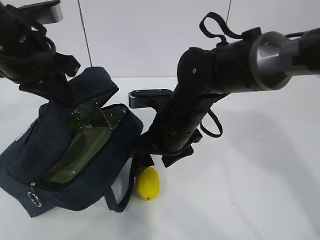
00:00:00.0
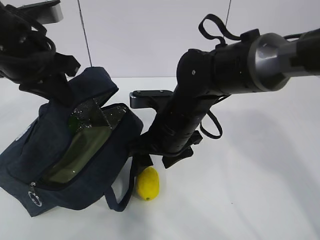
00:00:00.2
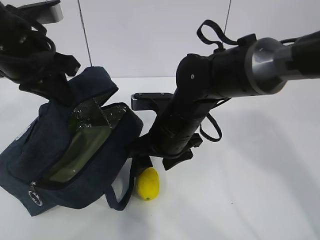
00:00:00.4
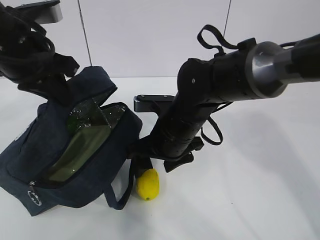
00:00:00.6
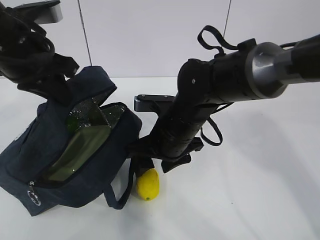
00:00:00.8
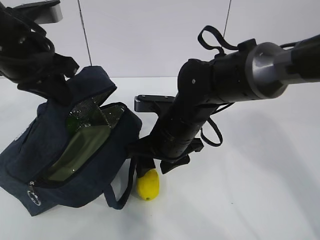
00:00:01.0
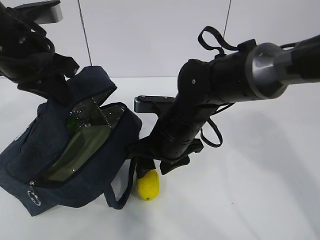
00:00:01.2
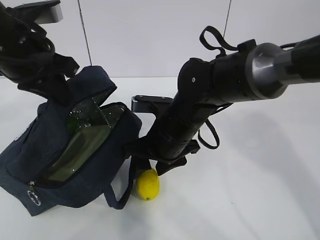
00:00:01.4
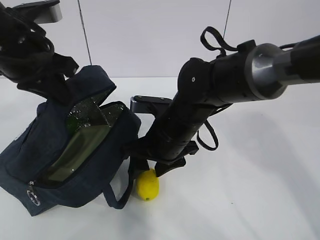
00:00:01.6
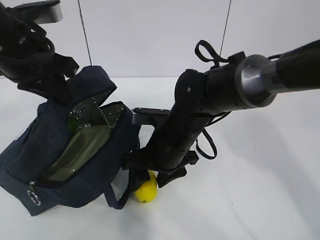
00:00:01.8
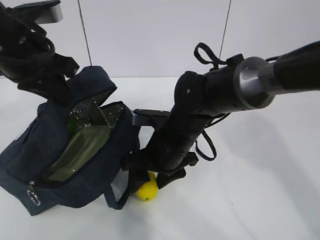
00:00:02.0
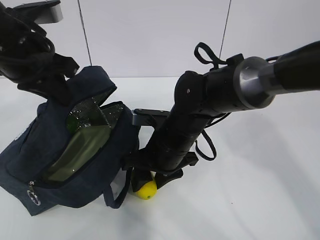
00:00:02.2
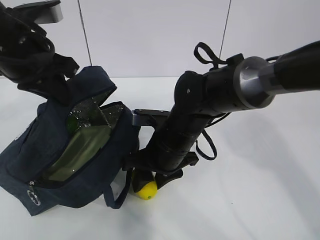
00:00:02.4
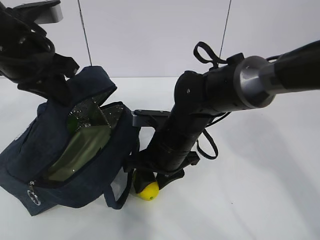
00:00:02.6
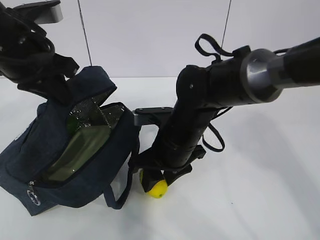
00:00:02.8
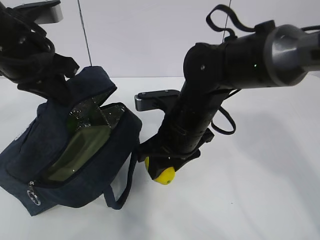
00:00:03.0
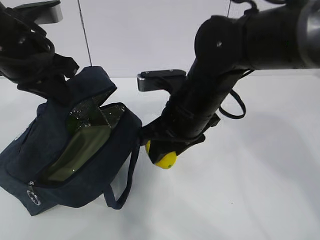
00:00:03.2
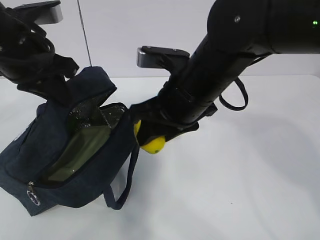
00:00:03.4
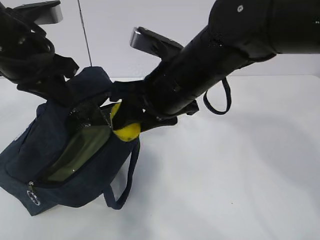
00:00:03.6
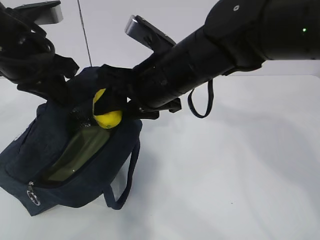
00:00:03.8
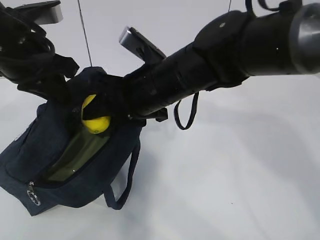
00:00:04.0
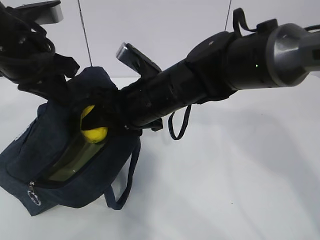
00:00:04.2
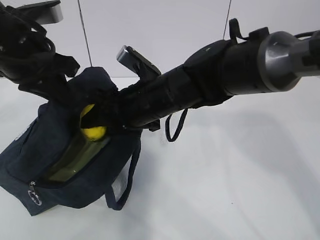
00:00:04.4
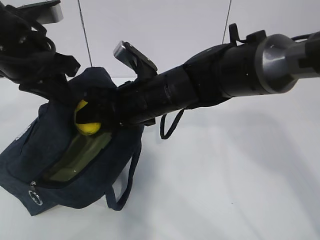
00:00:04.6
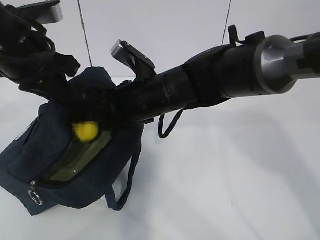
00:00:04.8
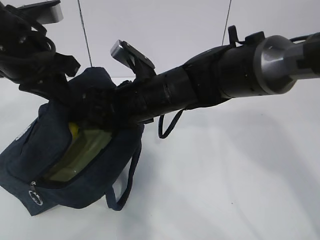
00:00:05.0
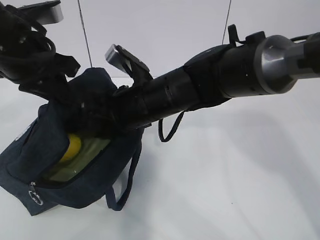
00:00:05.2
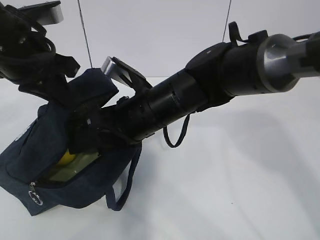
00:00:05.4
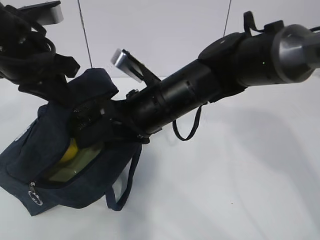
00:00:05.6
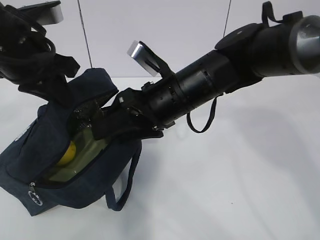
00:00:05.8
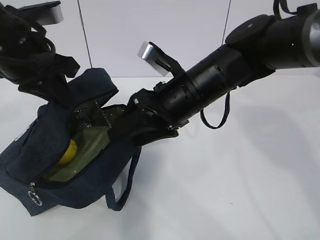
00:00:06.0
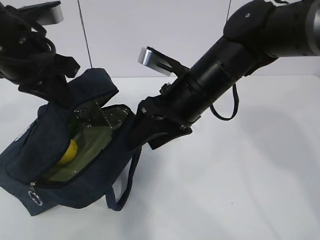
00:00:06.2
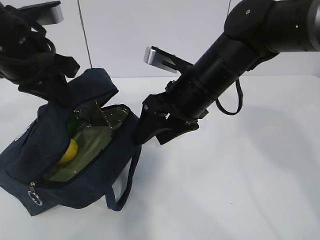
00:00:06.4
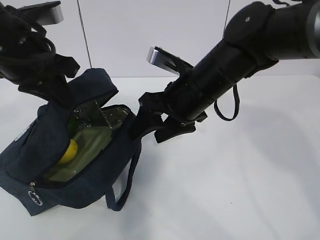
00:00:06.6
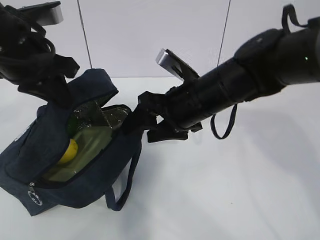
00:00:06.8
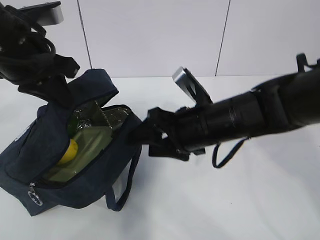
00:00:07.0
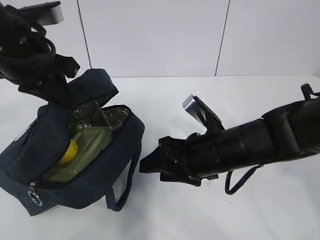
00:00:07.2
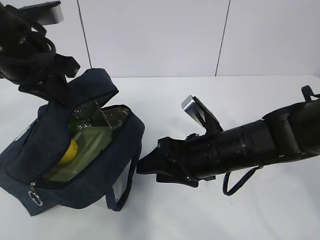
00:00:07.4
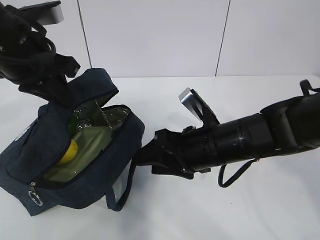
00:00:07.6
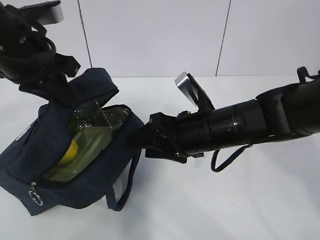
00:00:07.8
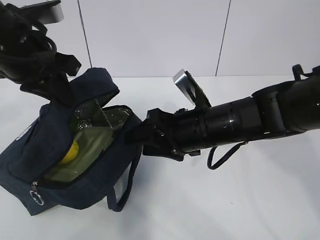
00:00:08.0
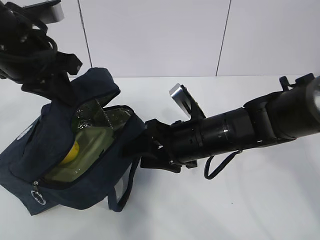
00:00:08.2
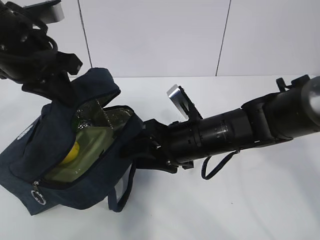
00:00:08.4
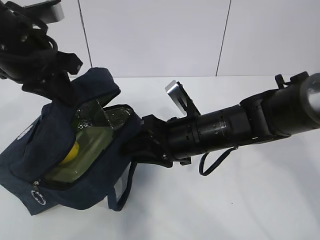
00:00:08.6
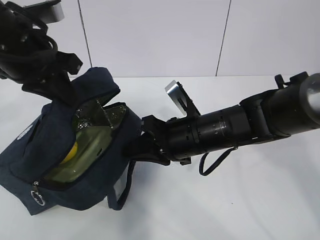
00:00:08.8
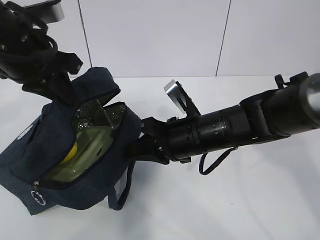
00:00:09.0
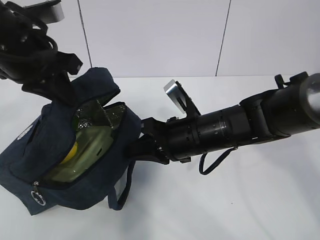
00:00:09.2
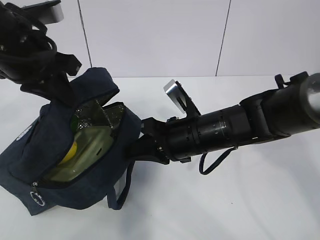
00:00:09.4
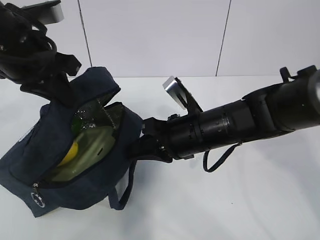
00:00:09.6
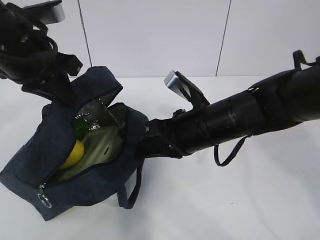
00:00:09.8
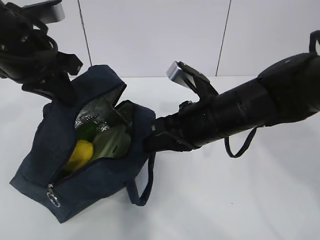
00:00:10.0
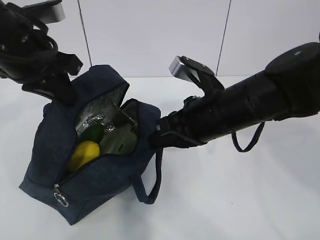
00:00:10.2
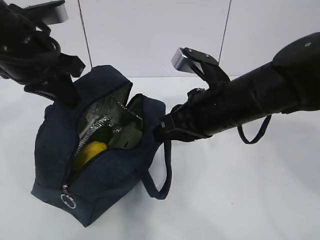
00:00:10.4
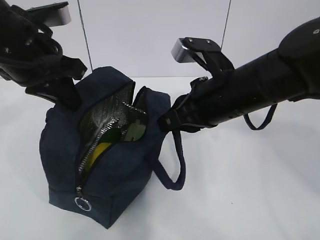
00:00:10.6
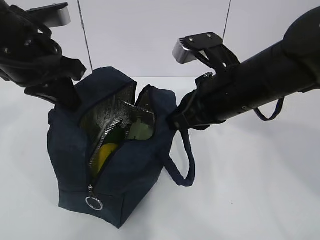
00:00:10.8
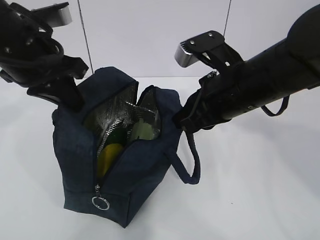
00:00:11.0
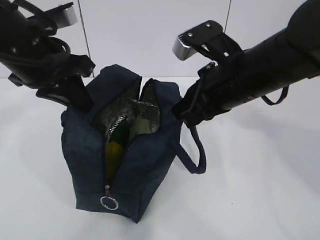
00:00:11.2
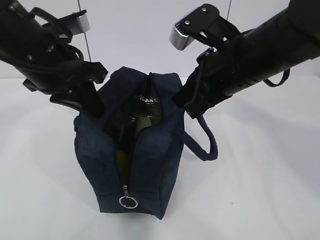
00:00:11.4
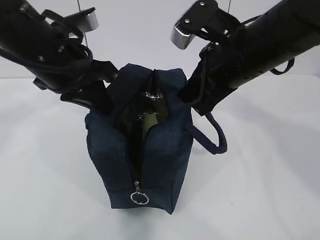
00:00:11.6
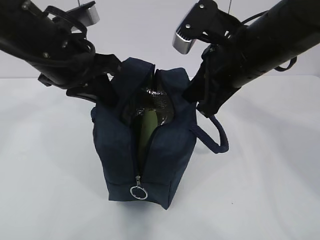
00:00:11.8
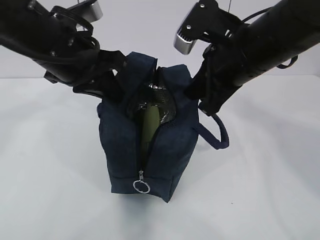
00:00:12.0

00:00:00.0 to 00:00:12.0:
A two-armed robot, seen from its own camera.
Step, 00:00:00.0 to 00:00:02.6: Grasp the lemon with the right gripper.
Step, 00:00:02.8 to 00:00:05.8: Place the lemon into the package with the right gripper.
00:00:00.0 to 00:00:03.0: The grippers stay close to where they were, moving slightly.
00:00:04.4 to 00:00:06.0: The right gripper moves to the right, roughly 5 cm.
00:00:06.0 to 00:00:07.6: The right gripper shifts approximately 5 cm downward.
00:00:07.6 to 00:00:09.0: The right gripper closes.
00:00:09.0 to 00:00:10.4: The right gripper is displaced upward by roughly 5 cm.
00:00:10.4 to 00:00:12.0: The right gripper heads upward, covering roughly 5 cm.

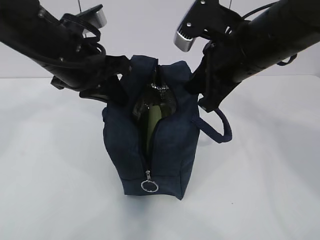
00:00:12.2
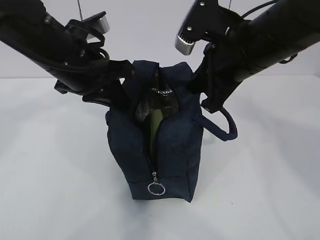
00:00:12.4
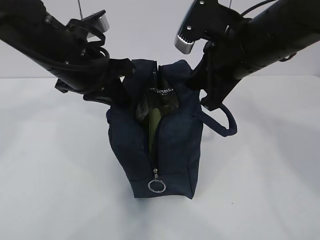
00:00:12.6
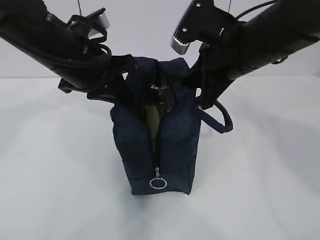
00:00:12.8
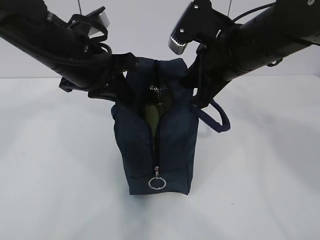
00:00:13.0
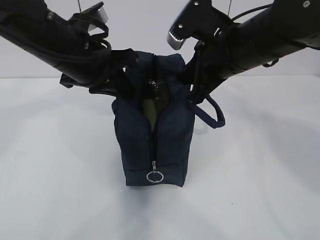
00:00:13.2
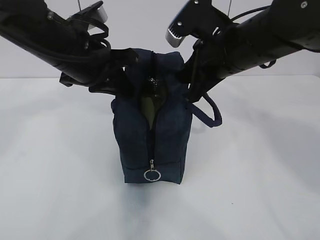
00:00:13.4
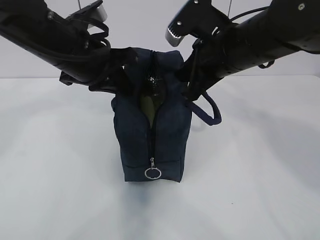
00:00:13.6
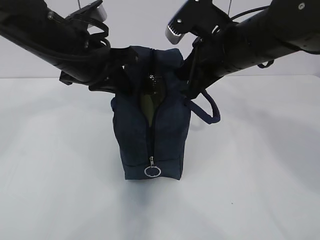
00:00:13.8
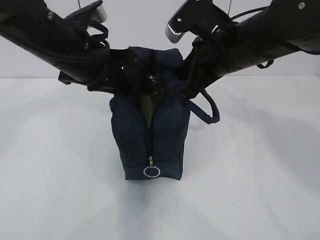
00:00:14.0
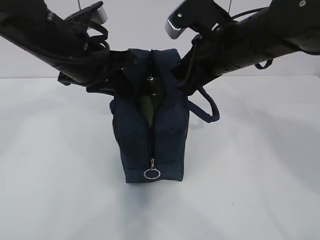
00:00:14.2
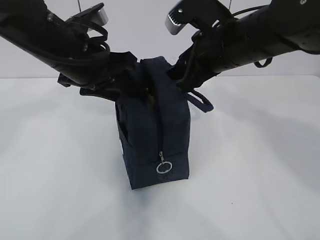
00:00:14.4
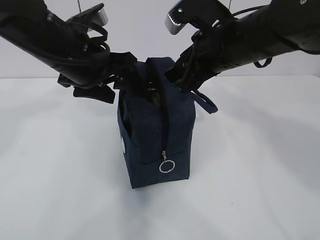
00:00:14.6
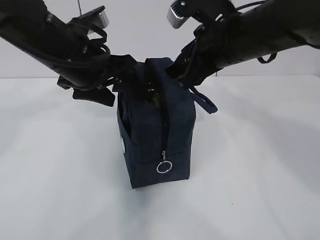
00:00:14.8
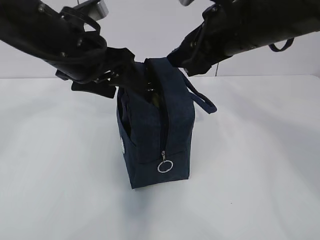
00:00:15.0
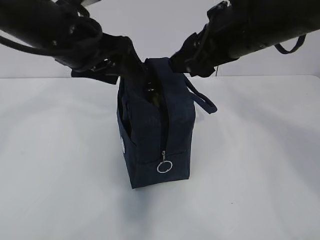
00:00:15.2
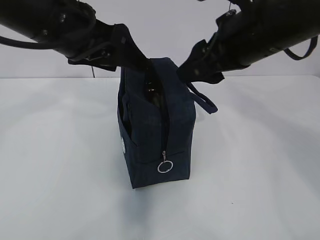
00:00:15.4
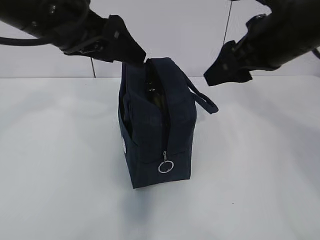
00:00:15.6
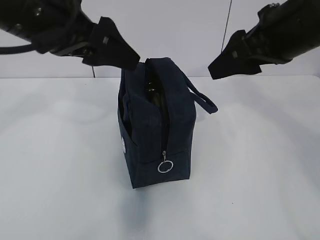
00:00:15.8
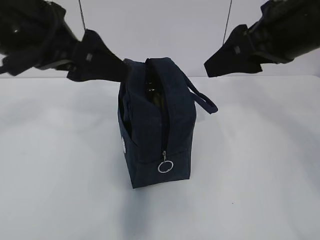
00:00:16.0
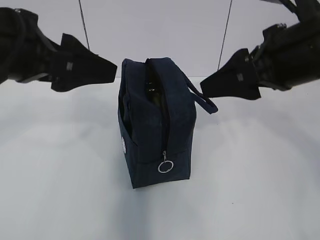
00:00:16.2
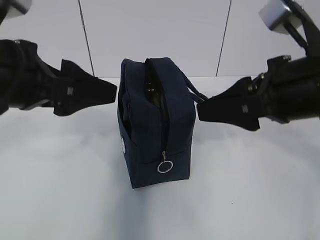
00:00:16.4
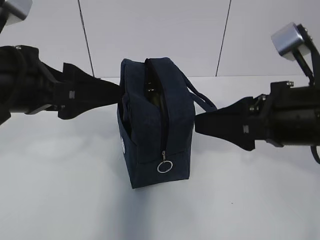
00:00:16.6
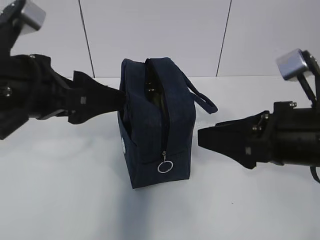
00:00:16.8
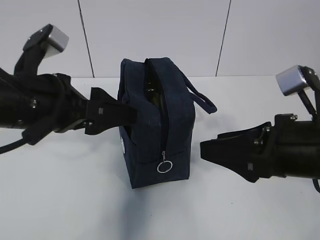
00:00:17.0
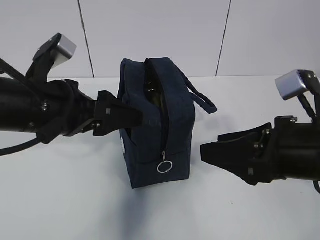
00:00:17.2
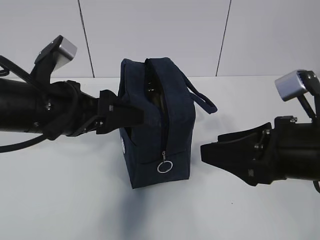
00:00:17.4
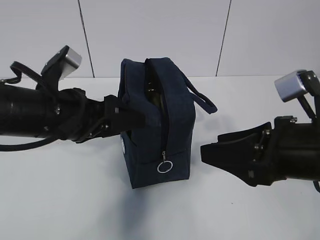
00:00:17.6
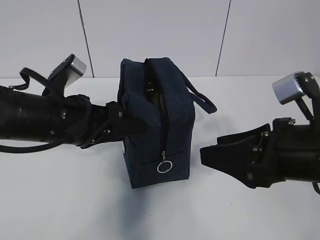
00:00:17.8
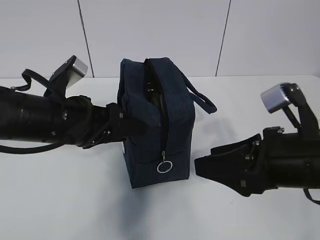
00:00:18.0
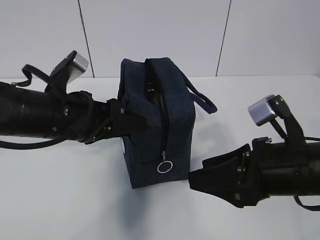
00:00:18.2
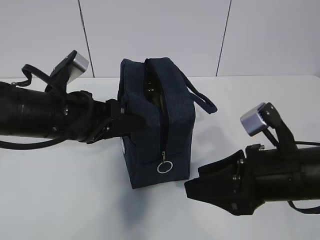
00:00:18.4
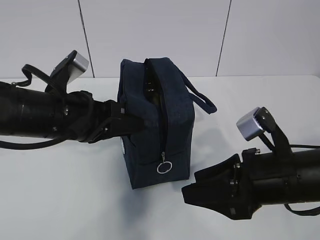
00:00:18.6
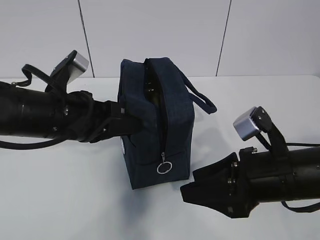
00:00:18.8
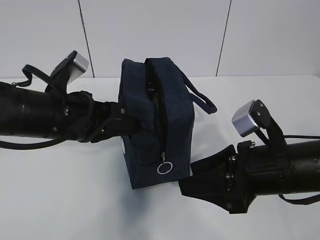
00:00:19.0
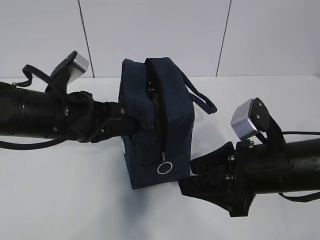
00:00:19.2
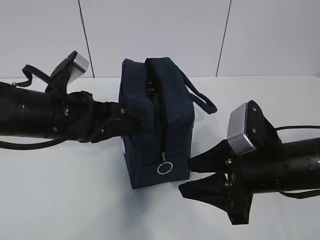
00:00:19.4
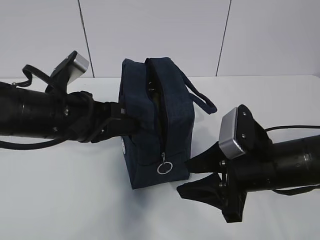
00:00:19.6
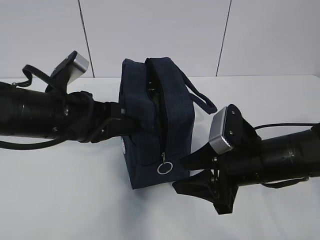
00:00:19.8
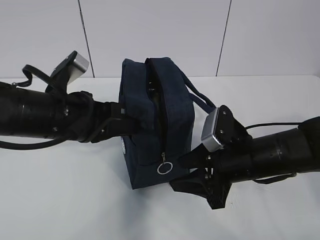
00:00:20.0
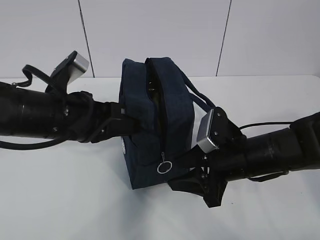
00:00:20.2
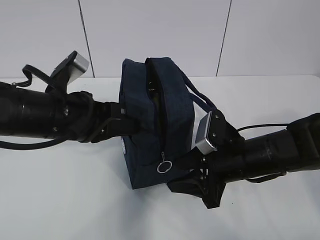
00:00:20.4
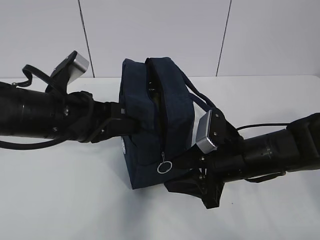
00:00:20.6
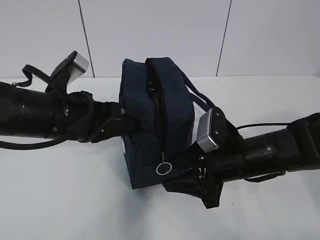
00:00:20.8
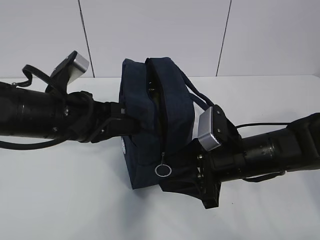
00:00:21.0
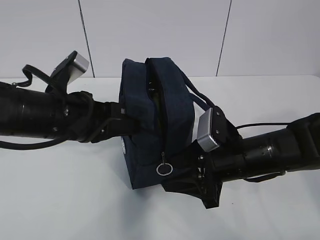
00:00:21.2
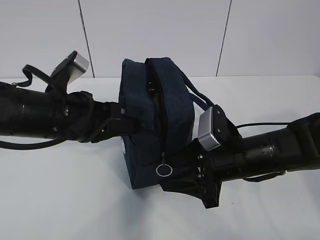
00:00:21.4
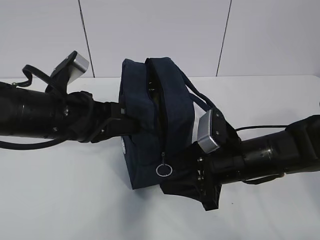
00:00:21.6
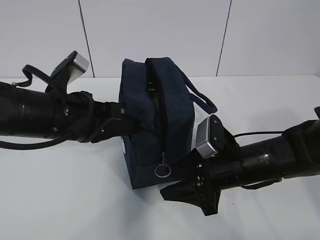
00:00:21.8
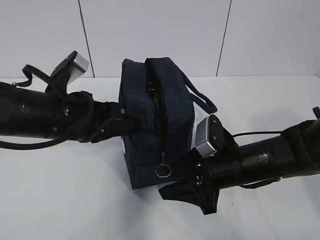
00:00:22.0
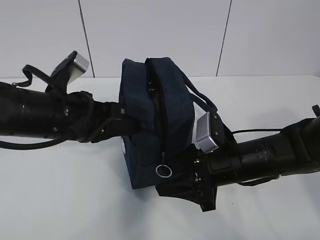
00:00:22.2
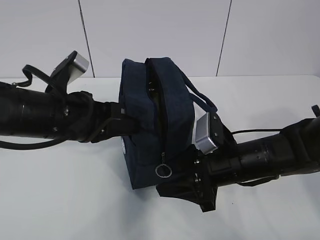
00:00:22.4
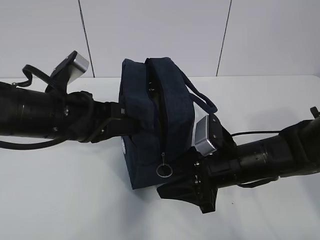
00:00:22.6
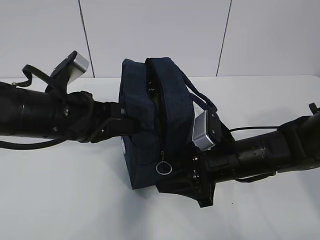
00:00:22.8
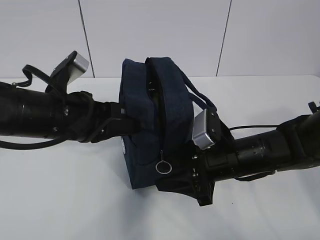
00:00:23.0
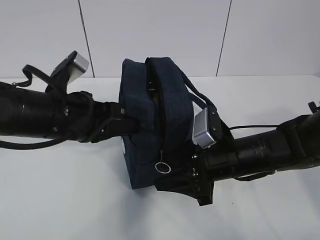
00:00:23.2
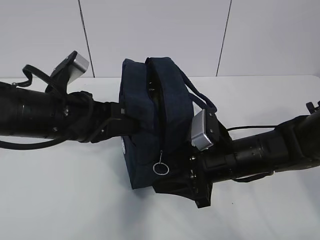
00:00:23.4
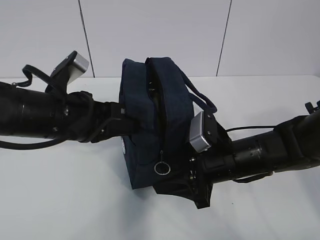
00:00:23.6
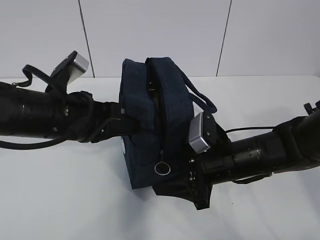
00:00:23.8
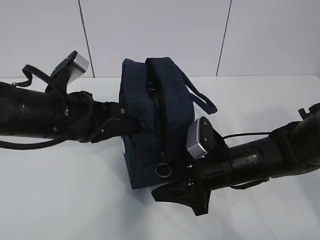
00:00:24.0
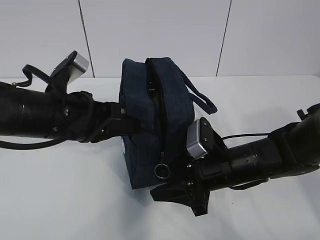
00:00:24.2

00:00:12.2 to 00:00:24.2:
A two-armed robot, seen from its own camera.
00:00:12.2 to 00:00:13.8: The grippers make only small movements.
00:00:13.8 to 00:00:15.2: The right gripper ends up approximately 5 cm from where it was, and opens its fingers, while the left gripper opens up.
00:00:15.2 to 00:00:16.6: The right gripper goes about 10 cm backward and downward. Meanwhile the left gripper heads backward, covering approximately 10 cm.
00:00:16.6 to 00:00:18.2: Both grippers move downward, some 10 cm.
00:00:18.2 to 00:00:19.8: The right gripper ends up about 5 cm from where it was. The left gripper closes.
00:00:19.8 to 00:00:22.6: There are only small adjustments of the grippers.
00:00:22.6 to 00:00:24.2: Both grippers stay about where they are.
